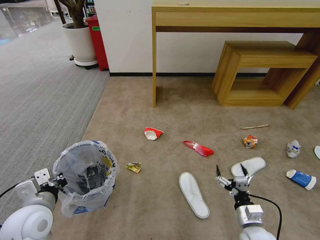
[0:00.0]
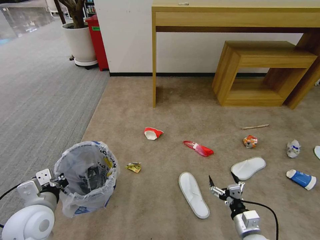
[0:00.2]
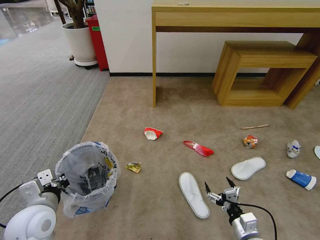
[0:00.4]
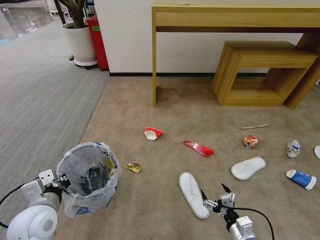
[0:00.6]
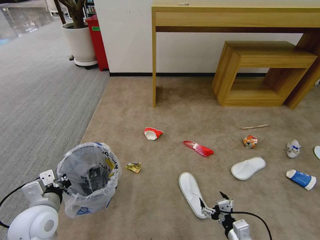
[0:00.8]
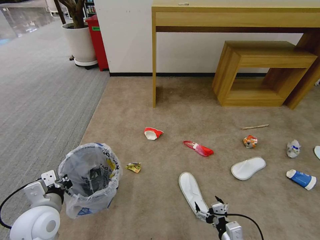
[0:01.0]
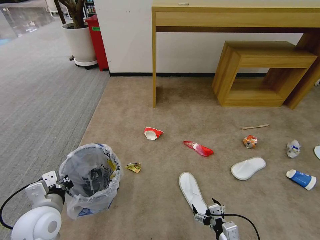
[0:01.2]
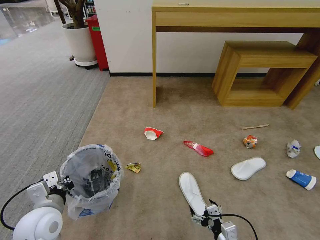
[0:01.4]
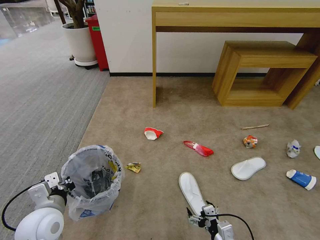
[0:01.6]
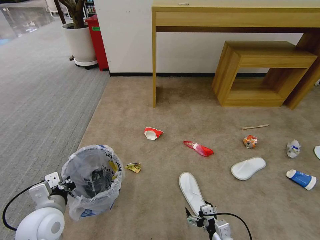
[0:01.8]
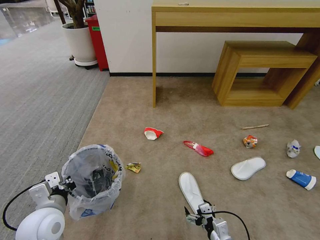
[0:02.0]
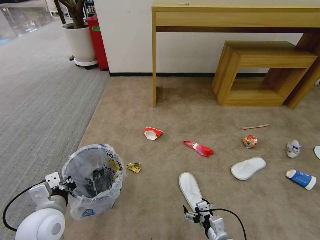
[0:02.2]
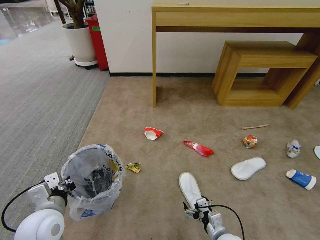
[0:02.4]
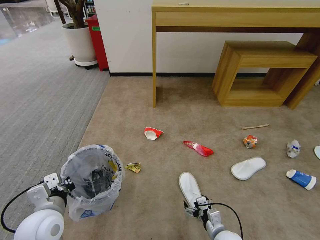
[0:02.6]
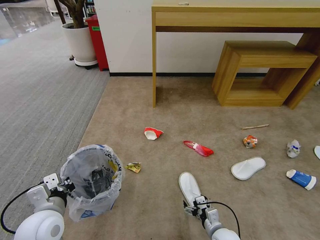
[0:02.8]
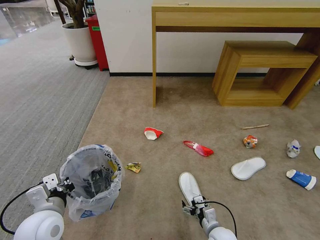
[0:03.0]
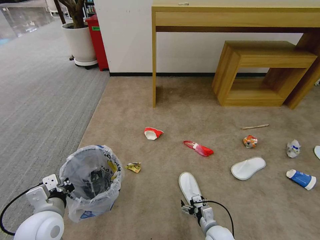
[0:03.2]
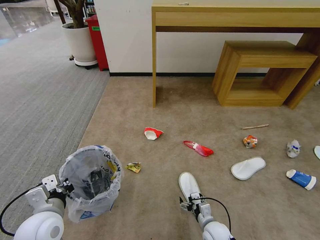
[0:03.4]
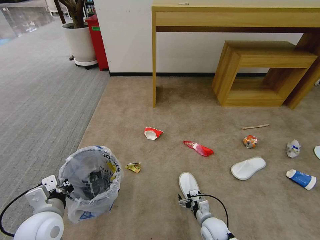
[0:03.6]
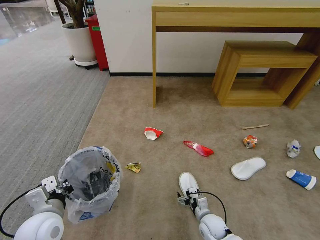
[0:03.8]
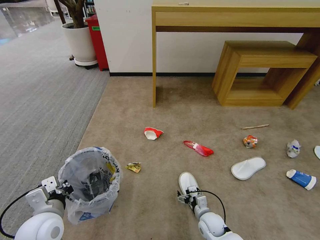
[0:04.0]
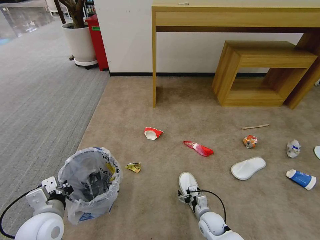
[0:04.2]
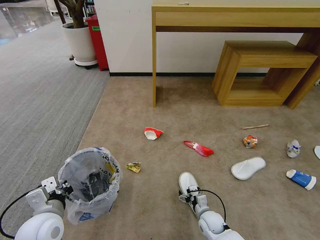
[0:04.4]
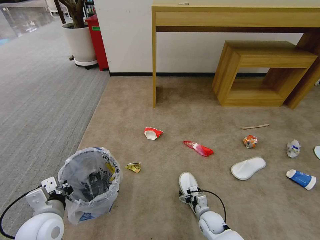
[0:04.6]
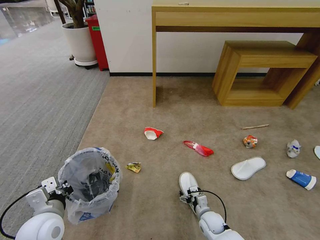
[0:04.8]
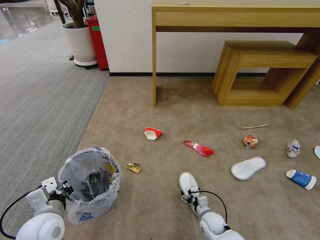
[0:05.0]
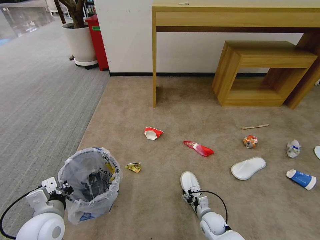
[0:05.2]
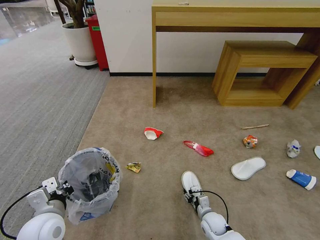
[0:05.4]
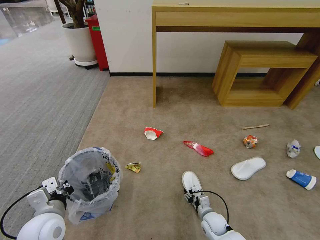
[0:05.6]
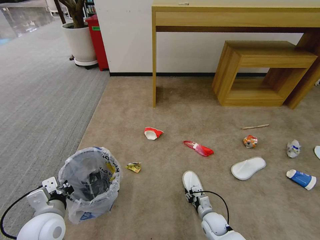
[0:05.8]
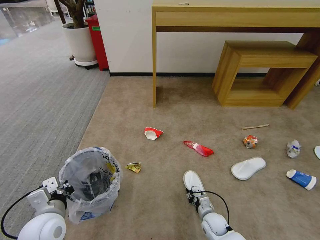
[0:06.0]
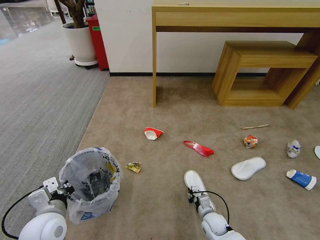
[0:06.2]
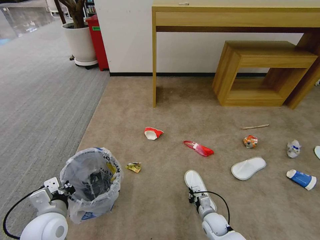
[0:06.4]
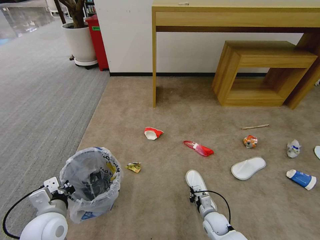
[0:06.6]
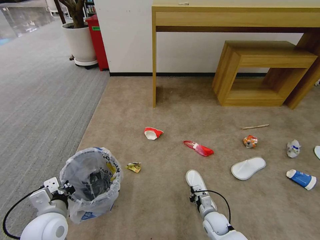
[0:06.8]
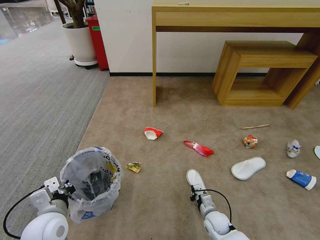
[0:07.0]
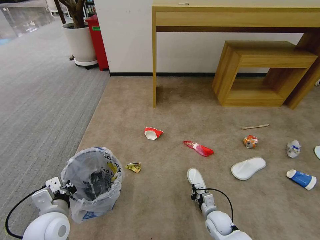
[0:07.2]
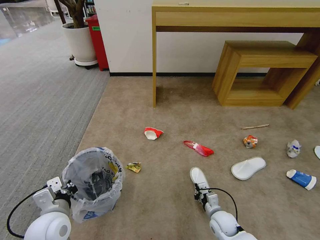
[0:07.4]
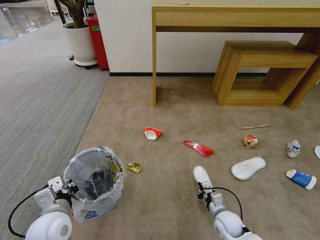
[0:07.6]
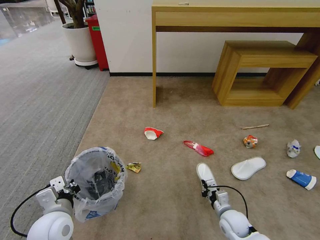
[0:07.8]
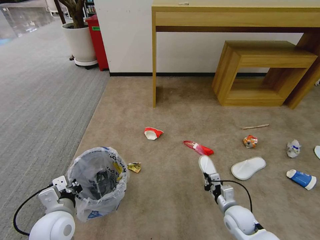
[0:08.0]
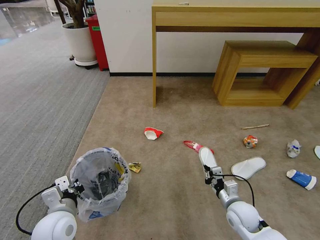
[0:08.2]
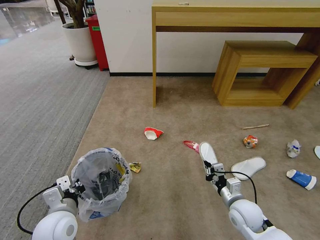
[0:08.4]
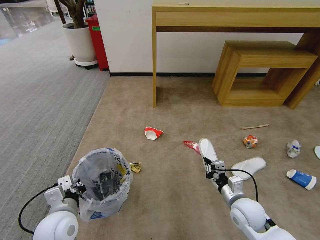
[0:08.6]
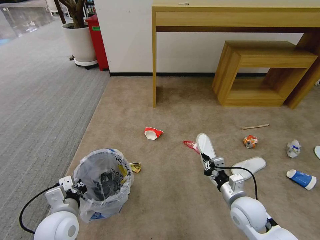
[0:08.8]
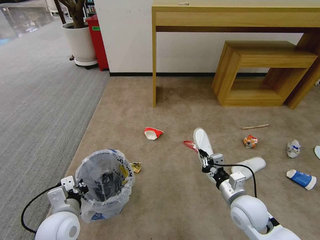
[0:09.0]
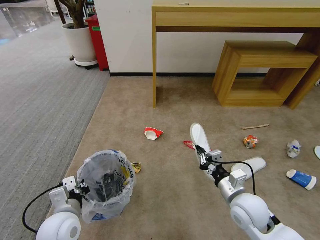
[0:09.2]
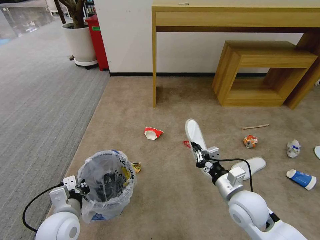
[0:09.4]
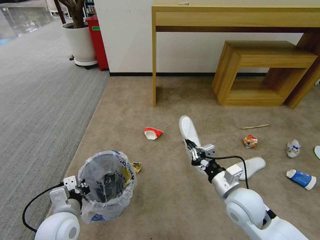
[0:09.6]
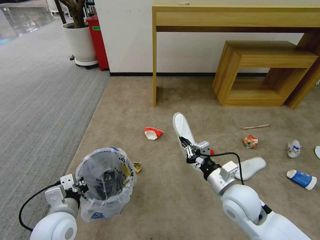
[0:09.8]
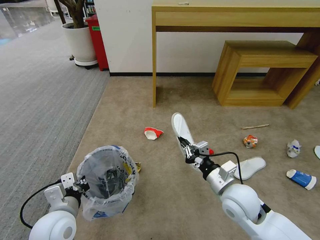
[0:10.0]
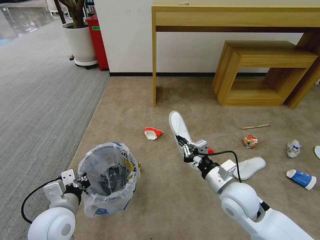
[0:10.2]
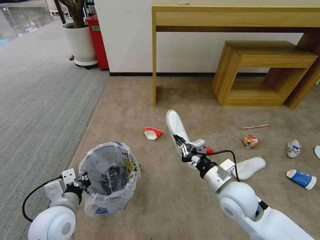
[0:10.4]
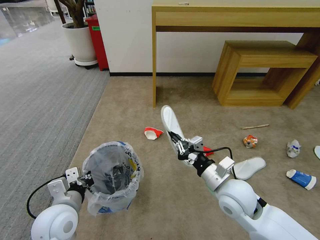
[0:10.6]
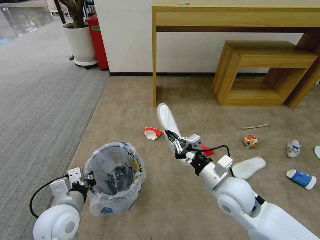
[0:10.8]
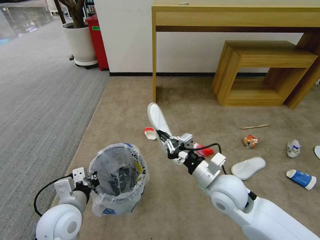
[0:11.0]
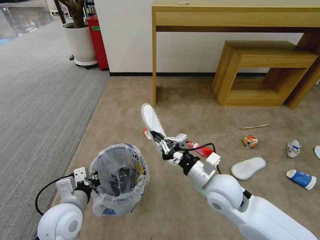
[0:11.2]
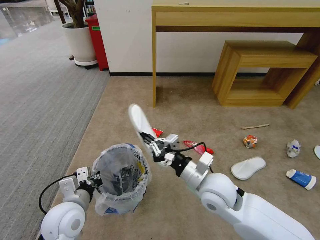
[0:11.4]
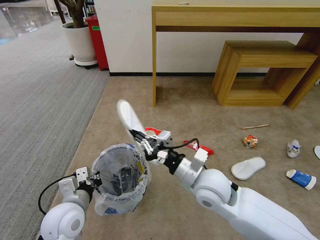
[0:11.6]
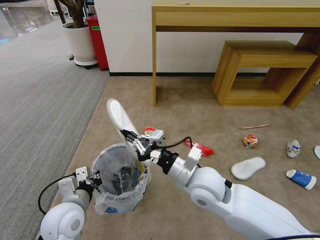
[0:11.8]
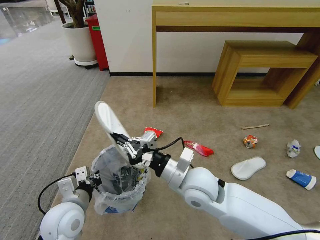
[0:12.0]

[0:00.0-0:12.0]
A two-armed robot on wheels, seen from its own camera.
Task of the whole recording: Pick up the trash bin and place the garbage on the floor into it.
0:00.0 to 0:01.6: The right gripper travels to the left and backward by roughly 10 cm.
0:01.6 to 0:03.0: The right gripper heads downward and forward, covering roughly 10 cm.
0:03.0 to 0:04.4: The right gripper shifts roughly 5 cm forward.
0:04.4 to 0:06.0: The right gripper closes its fingers.
0:06.0 to 0:07.6: The right gripper shifts some 5 cm upward, and closes its fingers.
0:07.6 to 0:09.0: The right gripper moves upward, some 15 cm.
0:09.0 to 0:10.4: The right gripper moves upward, about 5 cm.
0:10.4 to 0:12.0: The right gripper travels to the left and upward by approximately 15 cm.

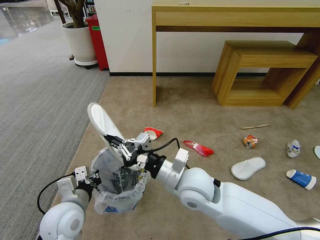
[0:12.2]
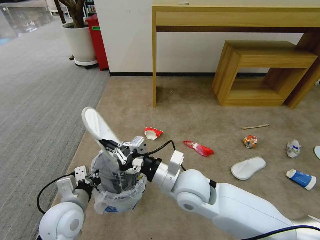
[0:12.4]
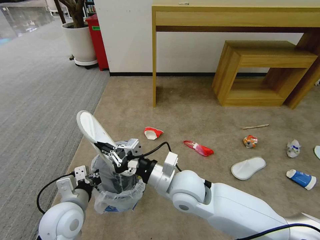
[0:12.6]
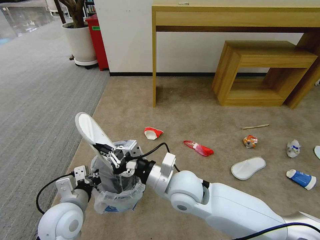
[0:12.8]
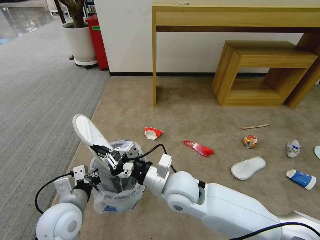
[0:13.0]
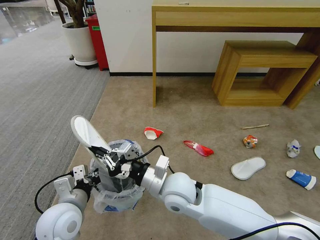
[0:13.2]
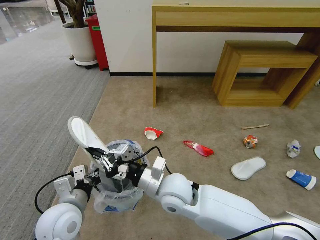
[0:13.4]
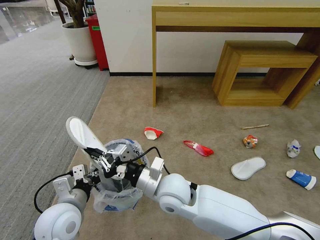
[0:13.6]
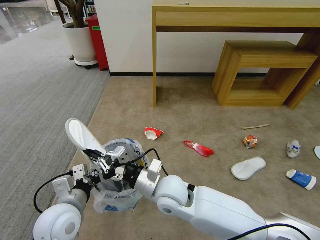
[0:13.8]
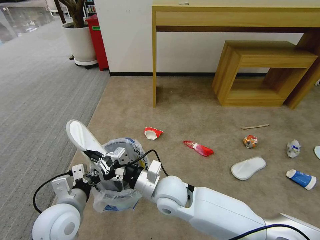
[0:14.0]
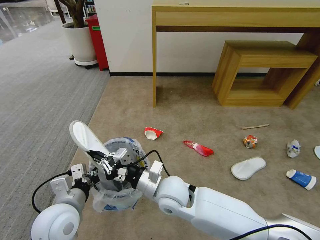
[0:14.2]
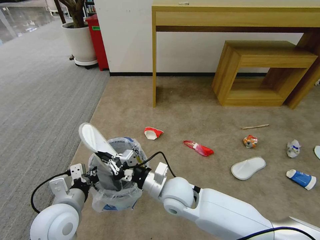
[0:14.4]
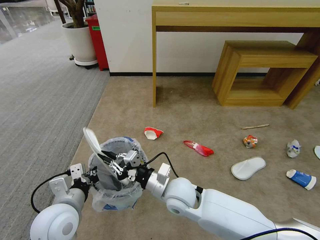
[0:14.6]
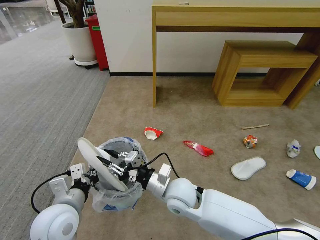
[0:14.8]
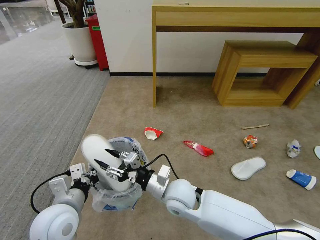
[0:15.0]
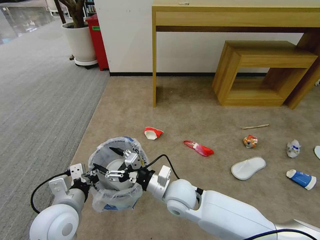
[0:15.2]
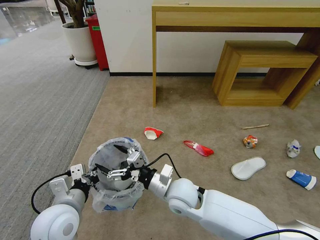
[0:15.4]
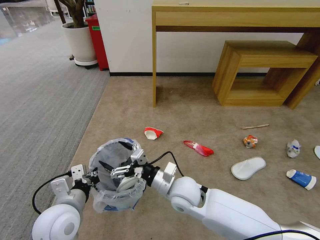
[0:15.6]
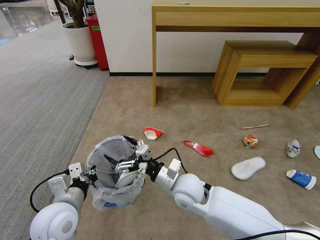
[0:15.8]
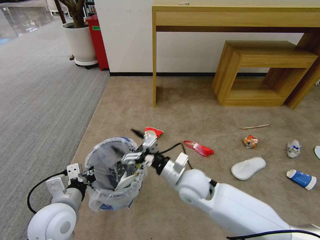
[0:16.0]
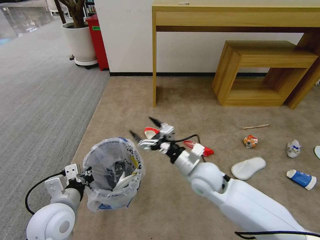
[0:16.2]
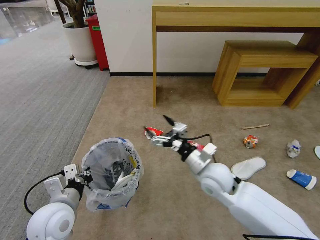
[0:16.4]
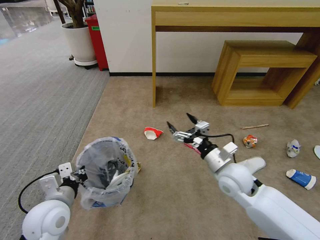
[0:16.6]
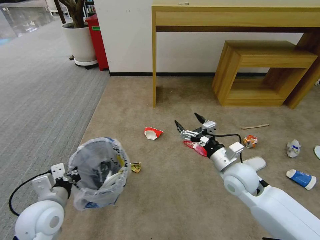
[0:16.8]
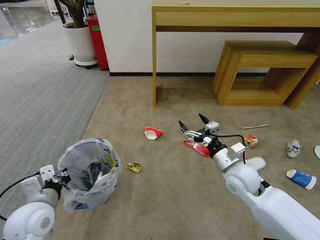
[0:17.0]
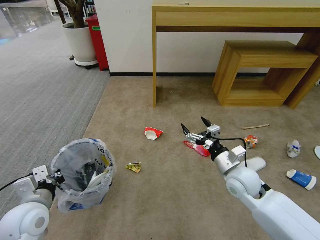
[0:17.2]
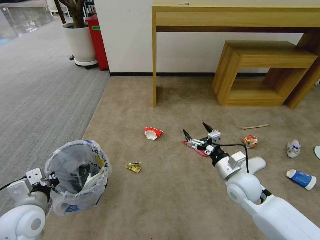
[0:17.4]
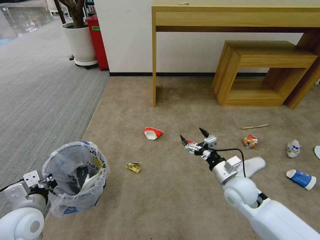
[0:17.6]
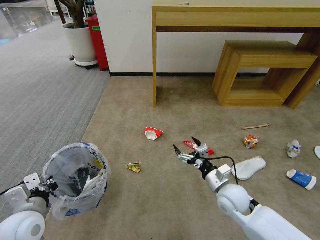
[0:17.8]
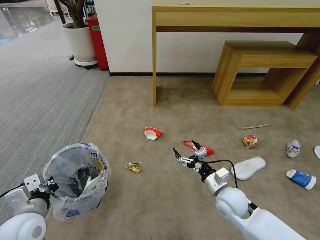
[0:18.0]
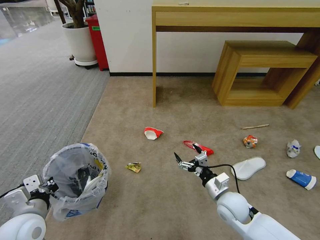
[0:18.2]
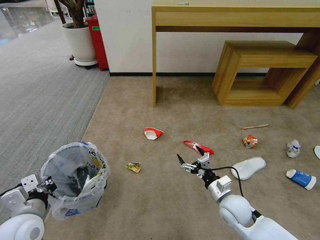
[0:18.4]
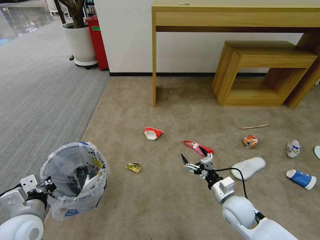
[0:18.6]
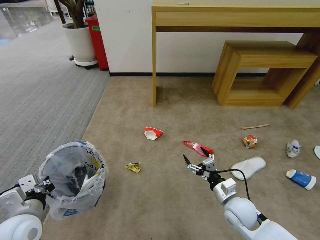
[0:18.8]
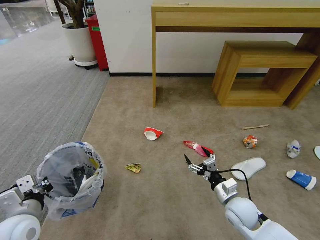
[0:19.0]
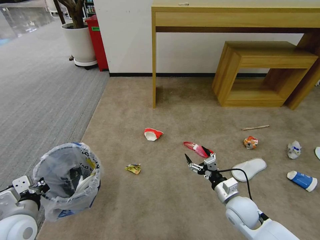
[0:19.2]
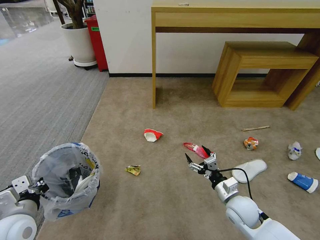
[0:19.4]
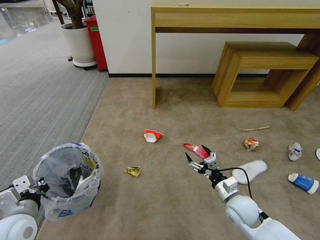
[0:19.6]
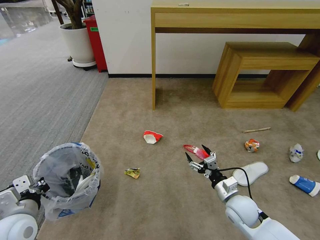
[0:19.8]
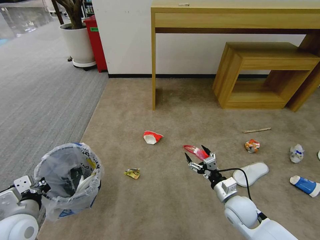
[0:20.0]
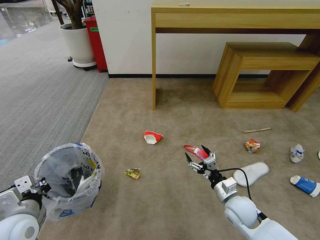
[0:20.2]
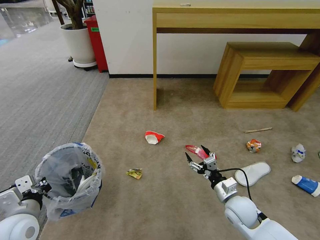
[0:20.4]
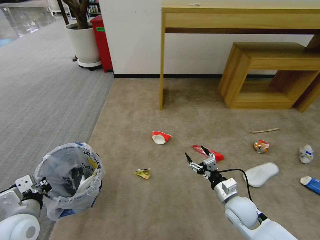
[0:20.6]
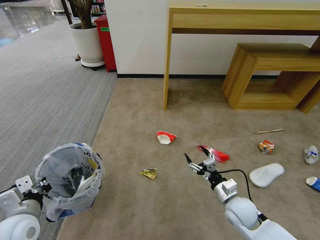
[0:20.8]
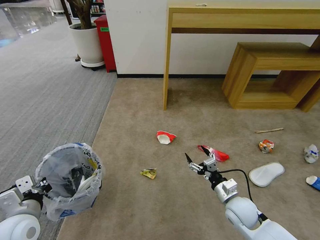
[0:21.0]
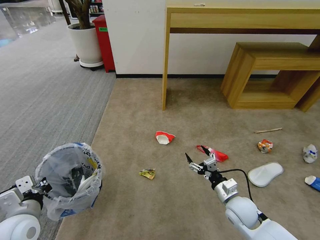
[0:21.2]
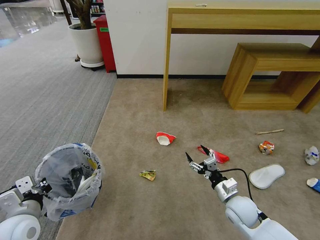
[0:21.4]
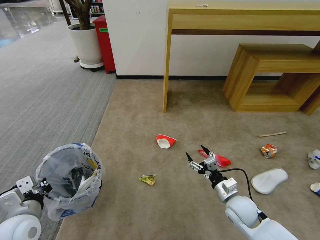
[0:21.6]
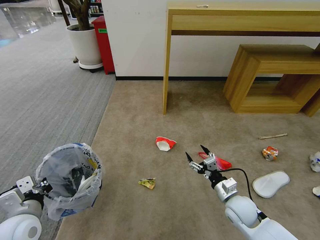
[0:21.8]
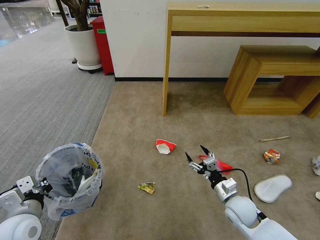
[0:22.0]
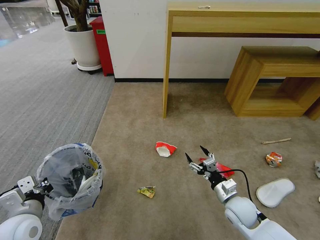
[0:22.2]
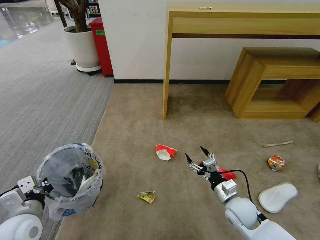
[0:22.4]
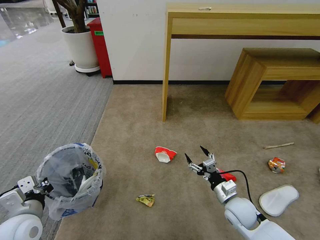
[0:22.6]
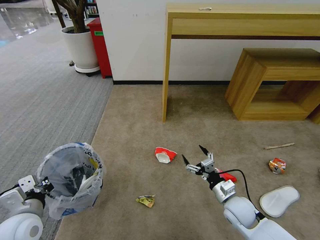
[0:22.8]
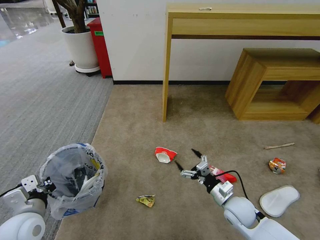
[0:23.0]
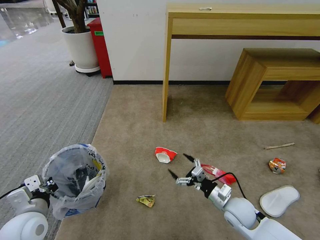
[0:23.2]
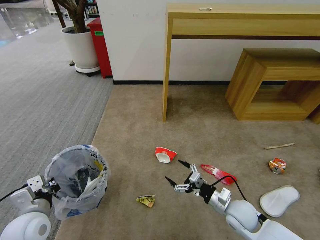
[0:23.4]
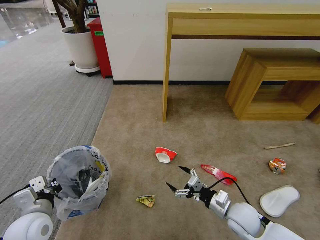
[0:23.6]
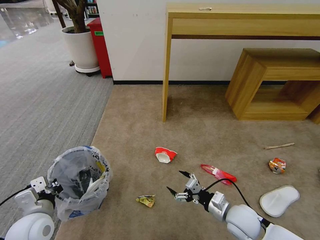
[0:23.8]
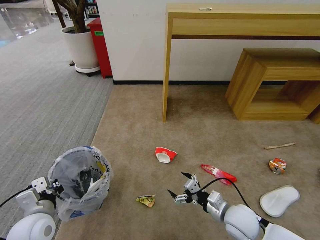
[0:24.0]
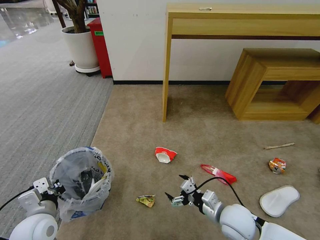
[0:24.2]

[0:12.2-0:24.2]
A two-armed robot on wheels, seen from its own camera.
Task of the whole recording: Pick up the trash bin and place the garbage on the floor into it.
0:12.2 to 0:13.8: The right gripper is displaced to the left by some 5 cm.
0:13.8 to 0:15.2: The right gripper changes place by roughly 5 cm, and opens up.
0:15.2 to 0:16.6: The right gripper is displaced to the right by approximately 15 cm.
0:16.6 to 0:18.2: The right gripper travels downward by some 10 cm. Meanwhile the left gripper moves to the left, approximately 5 cm.
0:18.2 to 0:19.8: The grippers stay close to where they were, moving slightly.
0:19.8 to 0:21.2: Neither gripper changes place.
0:22.6 to 0:24.2: The right gripper ends up roughly 5 cm from where it was.
